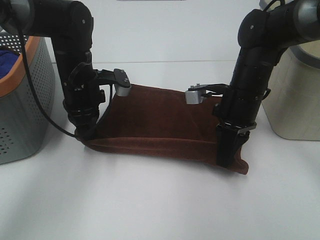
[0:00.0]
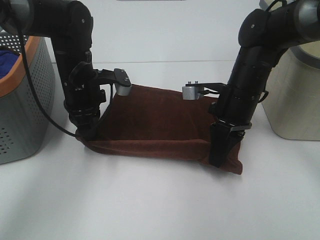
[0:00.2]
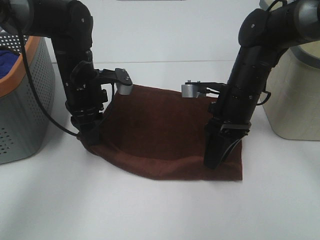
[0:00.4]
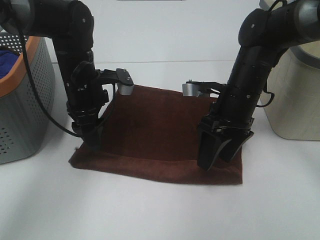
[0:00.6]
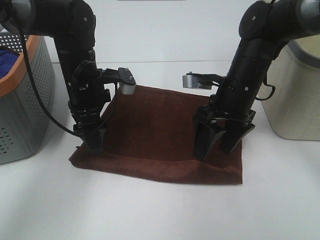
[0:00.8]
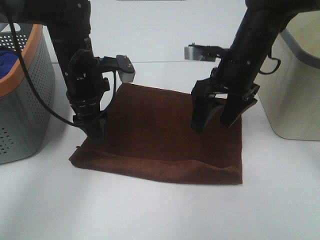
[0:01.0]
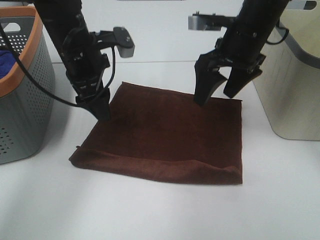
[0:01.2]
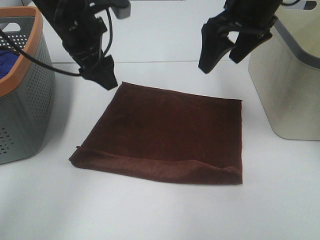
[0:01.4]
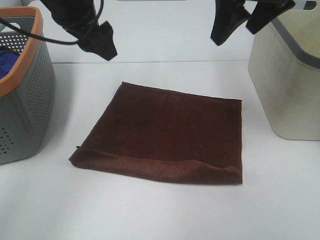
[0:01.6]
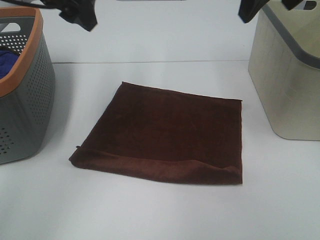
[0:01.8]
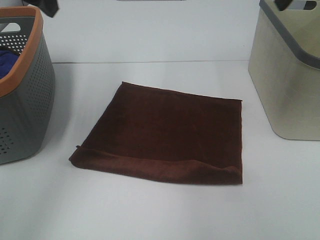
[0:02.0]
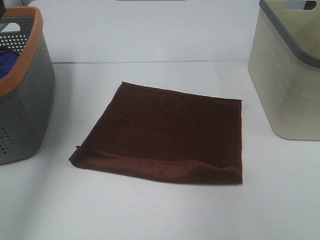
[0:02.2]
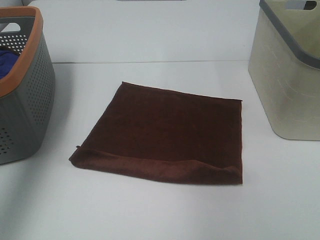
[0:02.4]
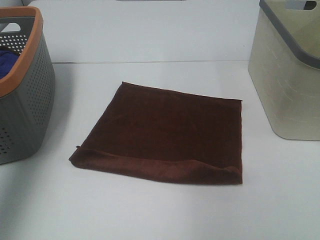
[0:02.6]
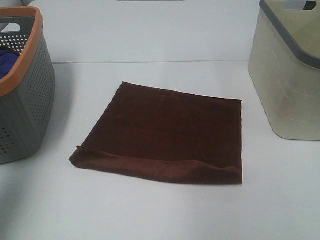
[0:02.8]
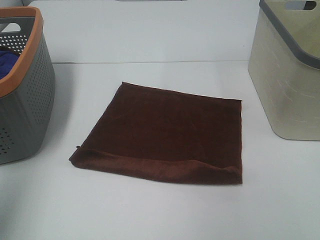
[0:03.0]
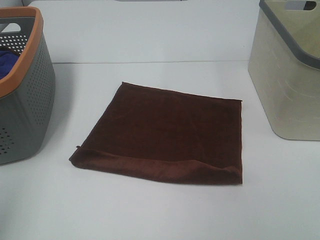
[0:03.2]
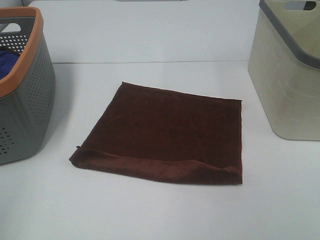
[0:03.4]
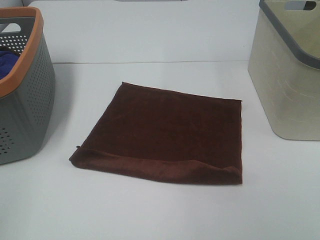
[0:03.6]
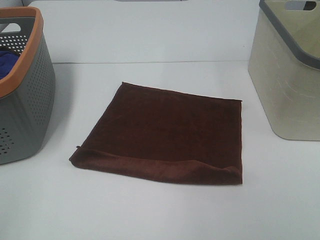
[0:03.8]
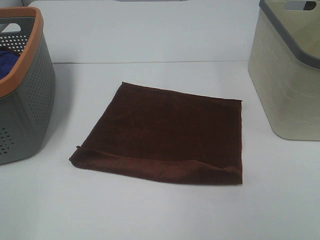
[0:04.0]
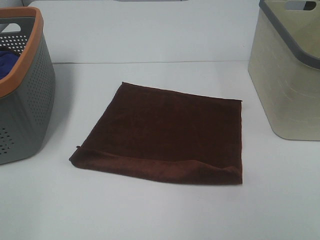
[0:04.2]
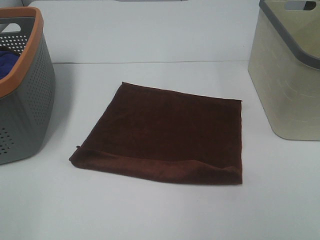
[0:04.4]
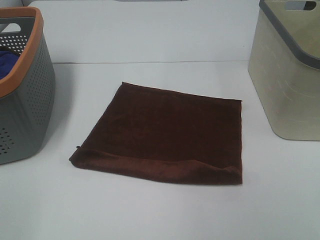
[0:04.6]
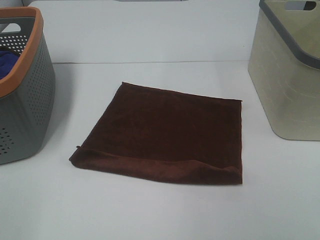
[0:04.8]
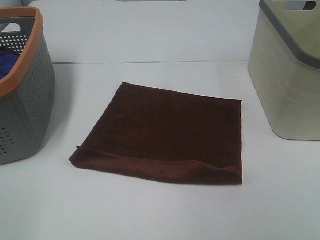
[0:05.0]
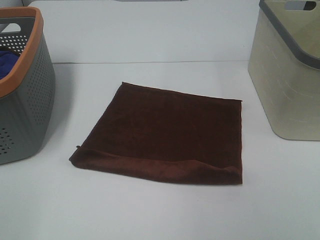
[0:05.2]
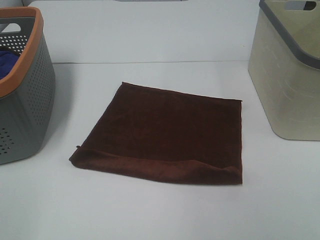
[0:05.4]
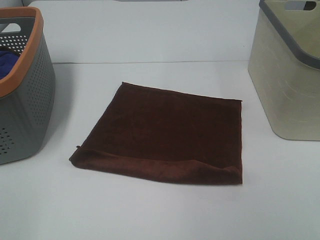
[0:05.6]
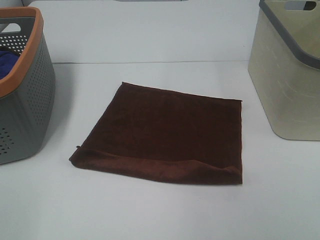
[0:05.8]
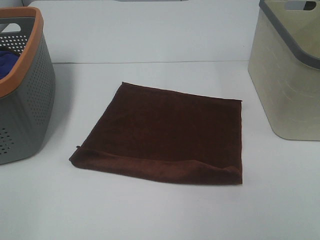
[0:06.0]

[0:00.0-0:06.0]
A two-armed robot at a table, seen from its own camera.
Task of the whole recording: Remove the towel and place it.
0:00.0 to 0:01.6: Both grippers move upward, roughly 20 cm. The left gripper opens its fingers; the right gripper opens its fingers.
0:01.6 to 0:03.0: The right gripper heads backward and to the right, covering approximately 30 cm, while the left gripper heads backward and to the left, covering approximately 30 cm.
0:03.0 to 0:04.4: The left gripper shifts about 15 cm backward and downward.
0:04.4 to 0:06.0: Both grippers stay put.

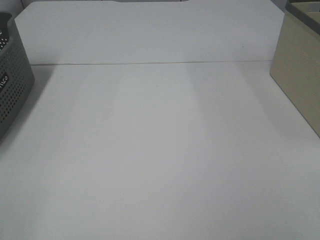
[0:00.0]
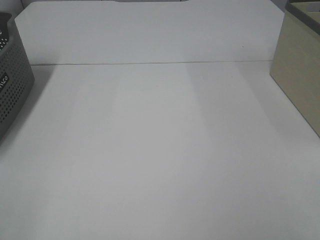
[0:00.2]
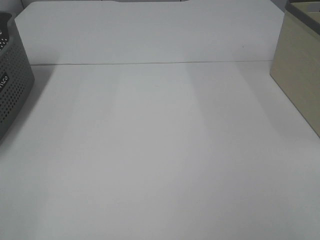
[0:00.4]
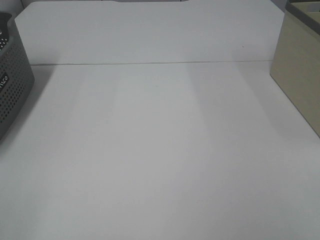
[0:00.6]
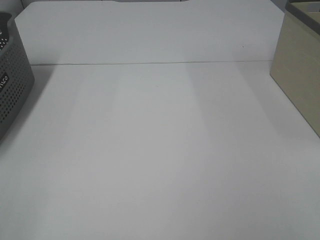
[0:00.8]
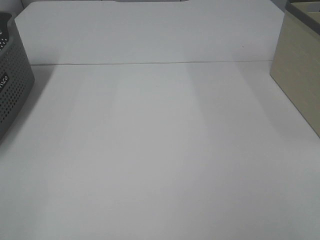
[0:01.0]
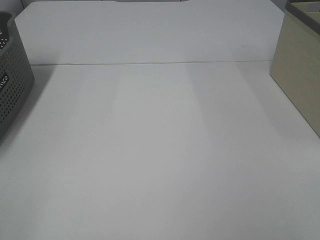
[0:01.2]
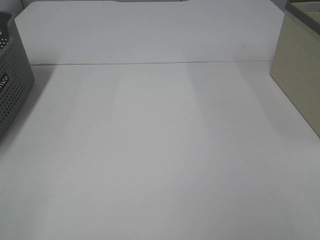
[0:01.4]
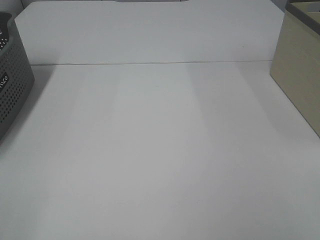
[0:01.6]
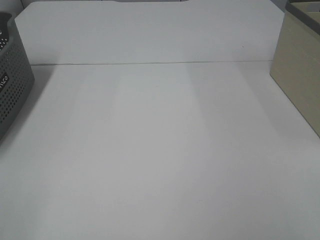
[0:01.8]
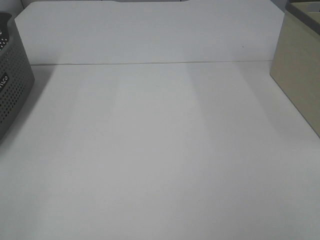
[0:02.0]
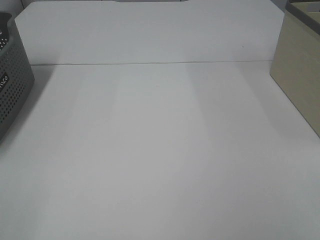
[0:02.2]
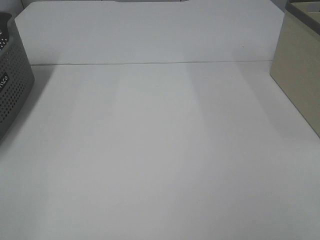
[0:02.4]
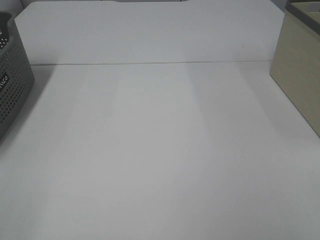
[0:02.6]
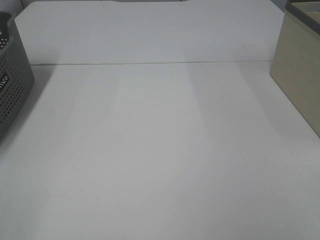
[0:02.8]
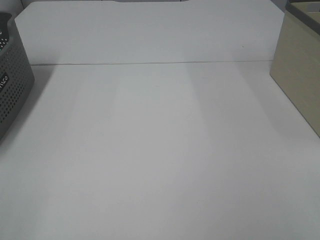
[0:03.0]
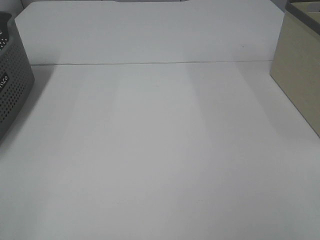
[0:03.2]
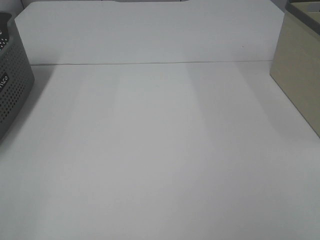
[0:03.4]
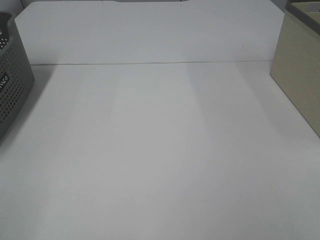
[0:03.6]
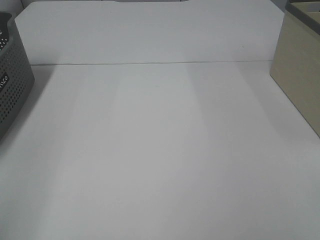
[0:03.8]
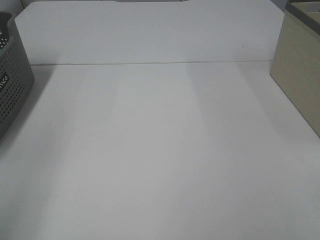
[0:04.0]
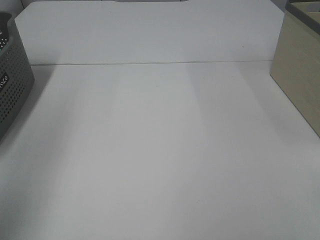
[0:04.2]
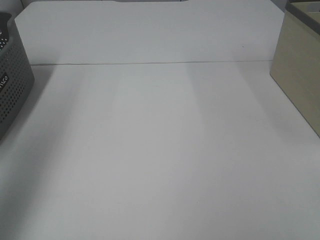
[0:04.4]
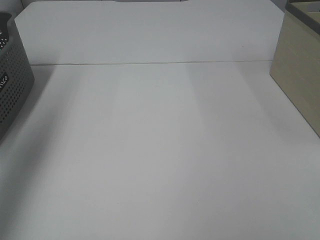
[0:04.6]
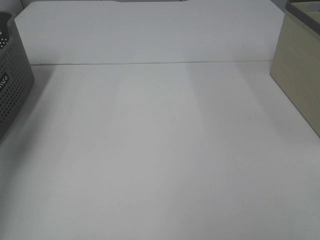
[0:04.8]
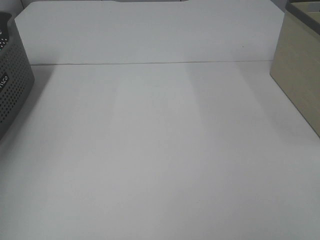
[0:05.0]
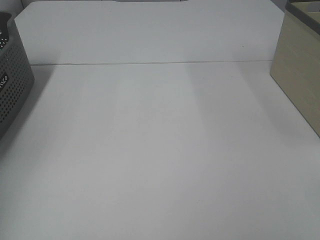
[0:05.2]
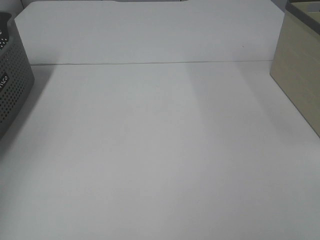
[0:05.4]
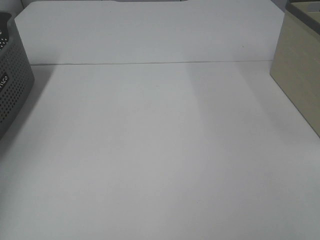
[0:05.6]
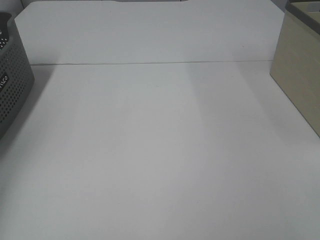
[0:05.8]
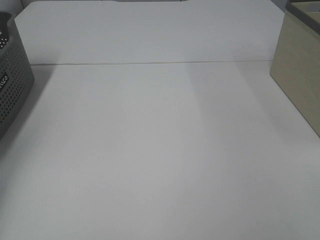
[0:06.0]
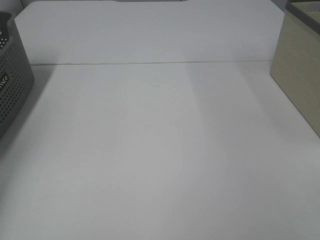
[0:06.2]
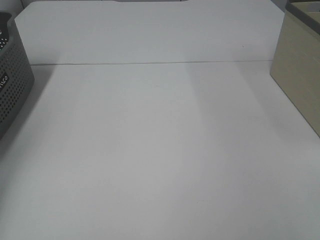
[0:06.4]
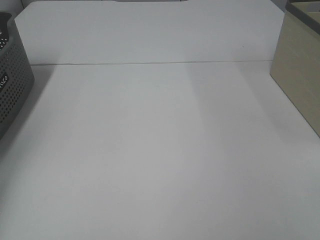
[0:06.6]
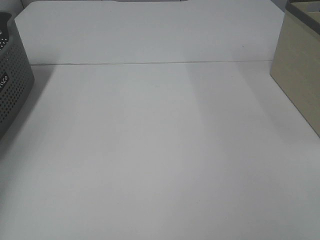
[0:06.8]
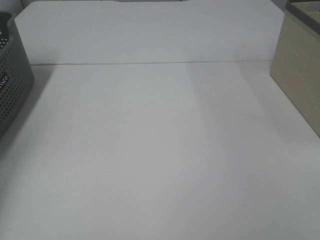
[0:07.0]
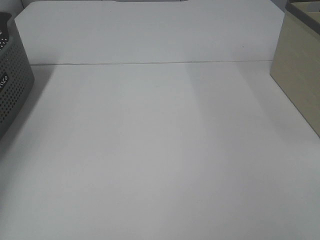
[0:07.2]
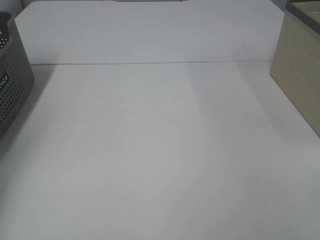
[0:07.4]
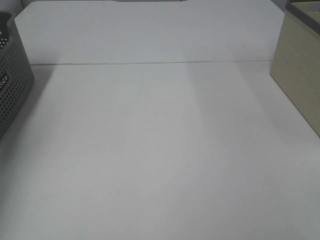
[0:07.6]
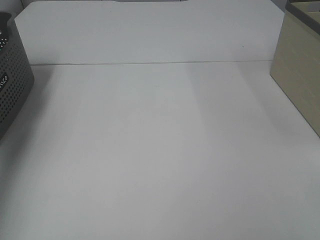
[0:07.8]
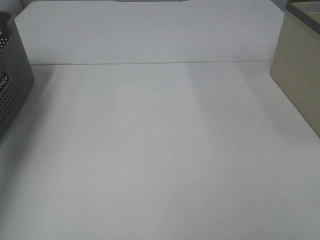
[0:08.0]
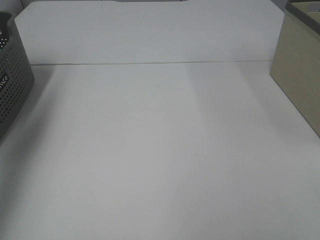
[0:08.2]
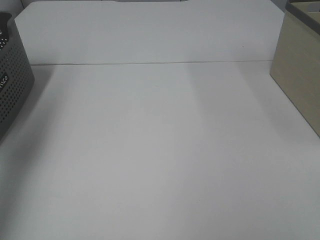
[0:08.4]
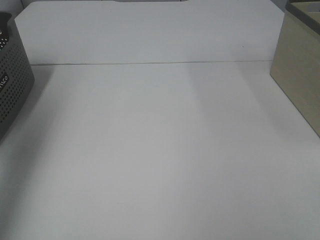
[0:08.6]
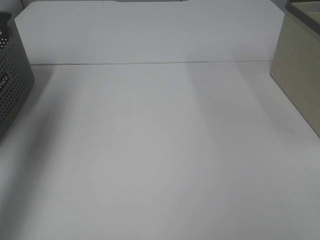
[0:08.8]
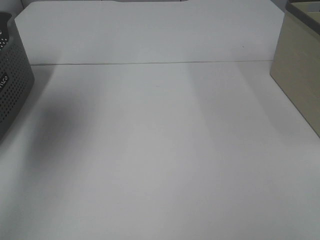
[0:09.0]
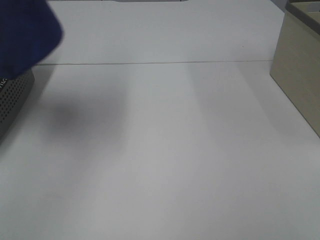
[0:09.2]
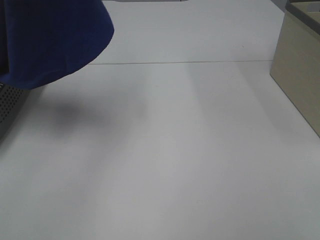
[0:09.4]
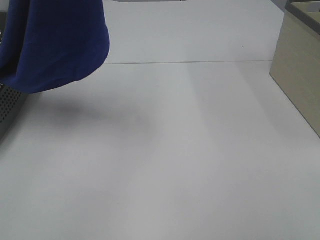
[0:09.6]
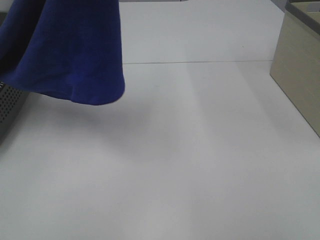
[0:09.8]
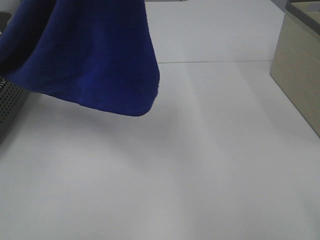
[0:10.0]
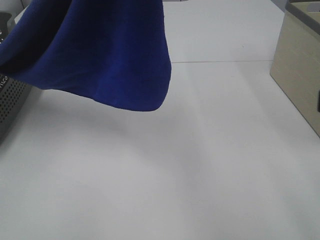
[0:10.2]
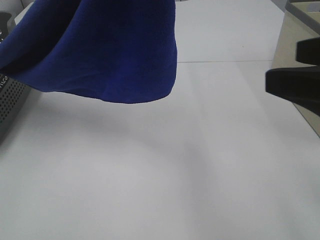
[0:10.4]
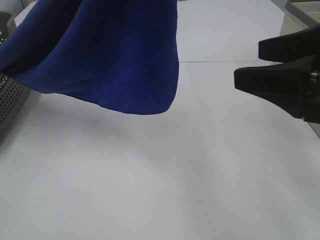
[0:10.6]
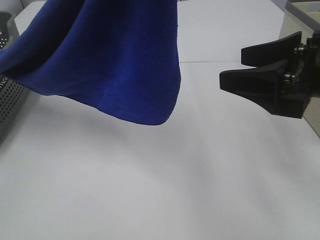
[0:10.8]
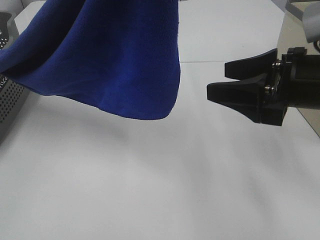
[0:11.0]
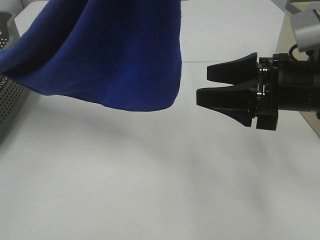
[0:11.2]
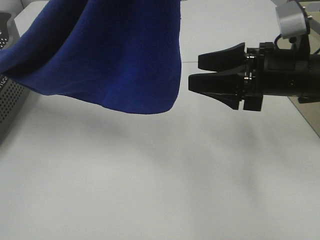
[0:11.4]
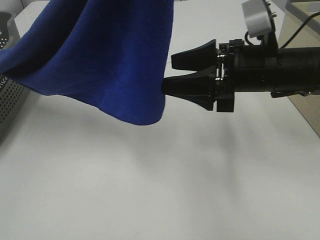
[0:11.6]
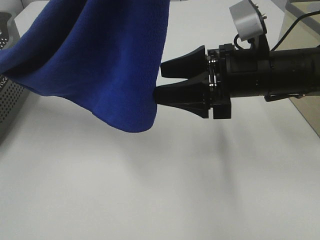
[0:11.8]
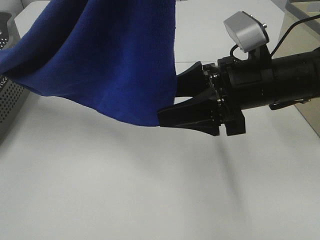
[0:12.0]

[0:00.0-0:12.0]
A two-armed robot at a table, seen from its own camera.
Task of the whole recording: Remove the towel and place it.
0:00.0 to 0:03.0: The two grippers keep their place.
0:03.0 to 0:04.4: The left gripper is displaced forward and upward by about 25 cm.
0:04.4 to 0:06.0: The left gripper goes some 35 cm downward, forward and to the left.
0:07.6 to 0:09.0: The left gripper heads upward, backward and to the right, covering approximately 40 cm.
0:09.0 to 0:10.4: The right gripper travels forward by about 15 cm. The left gripper is displaced to the right by some 20 cm.
0:10.4 to 0:12.0: The right gripper moves forward, downward and to the left, about 20 cm.

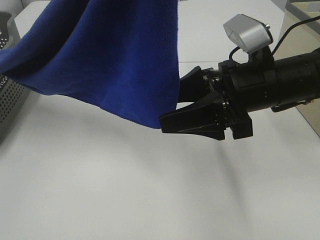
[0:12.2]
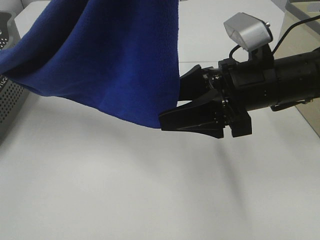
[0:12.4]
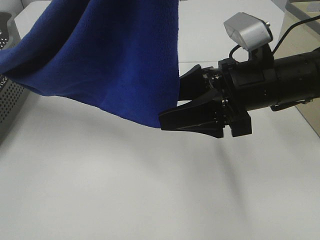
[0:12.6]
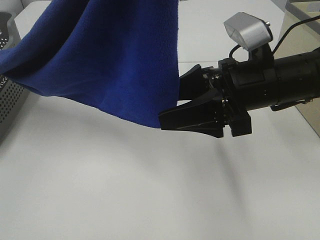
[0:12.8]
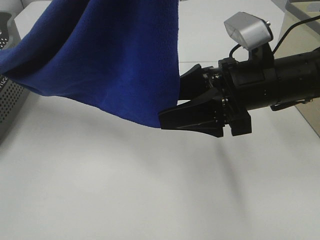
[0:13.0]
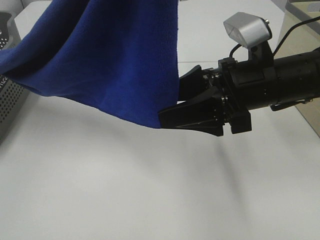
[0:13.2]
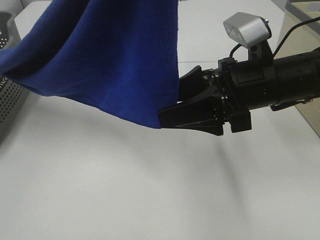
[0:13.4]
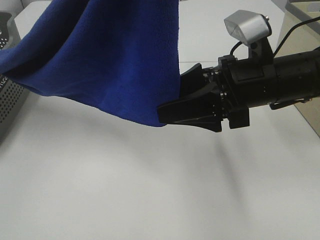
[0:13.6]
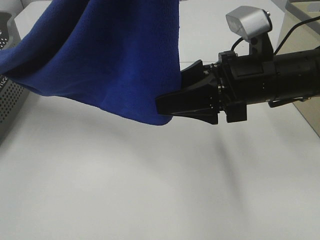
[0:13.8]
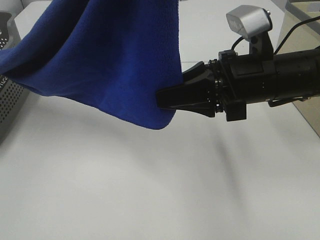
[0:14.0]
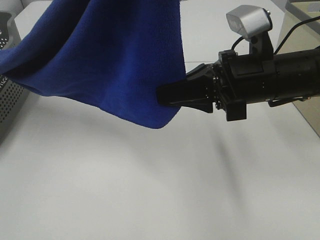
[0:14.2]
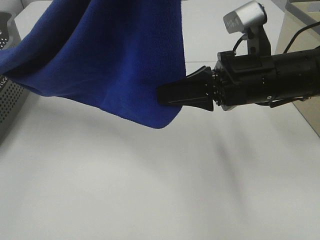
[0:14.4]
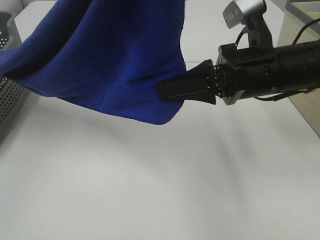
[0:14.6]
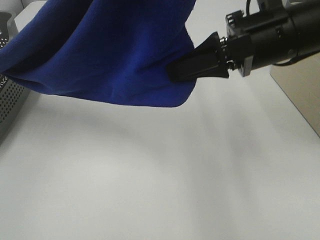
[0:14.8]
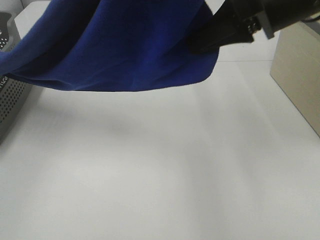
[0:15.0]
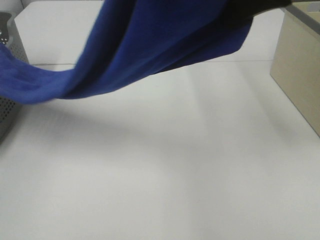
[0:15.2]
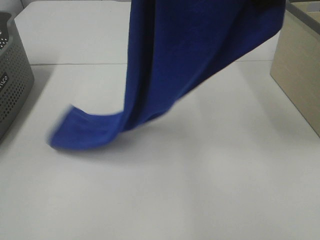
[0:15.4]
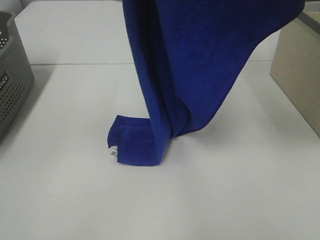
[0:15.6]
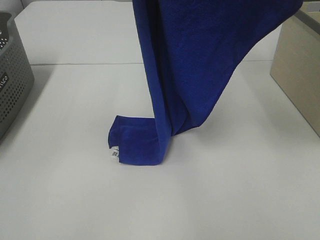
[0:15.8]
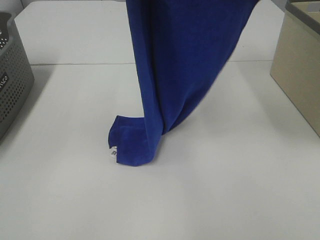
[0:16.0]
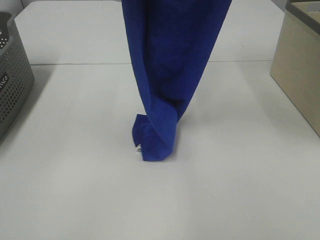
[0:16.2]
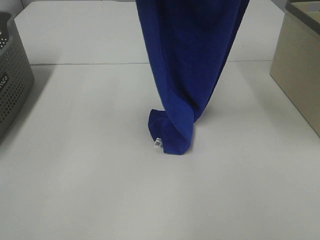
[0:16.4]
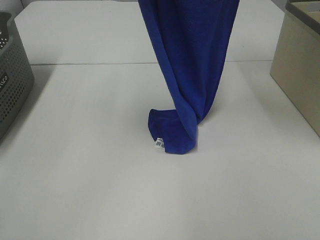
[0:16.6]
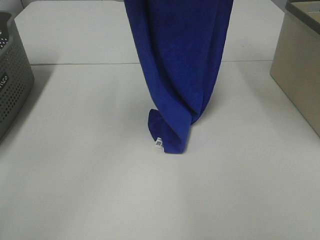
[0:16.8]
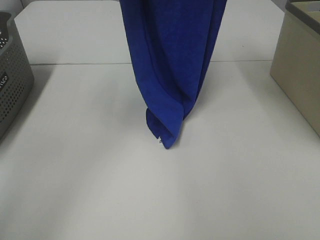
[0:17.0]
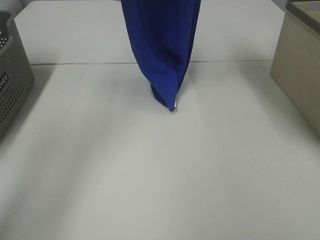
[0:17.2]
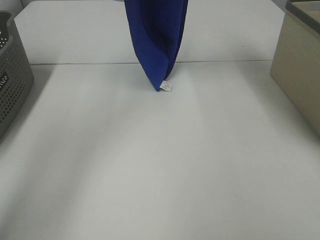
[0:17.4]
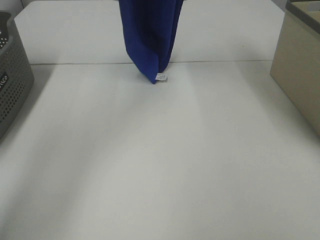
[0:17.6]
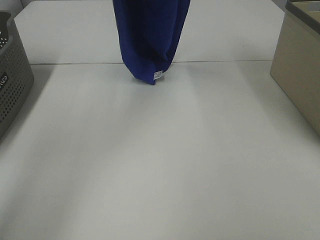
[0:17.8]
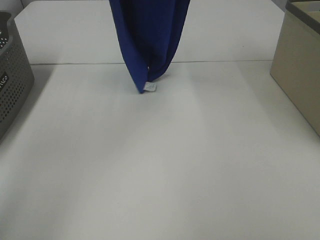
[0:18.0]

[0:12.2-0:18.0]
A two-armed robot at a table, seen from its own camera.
Task of the whole recording: Remove the towel and place it.
Step, 0:12.2 to 0:14.6: Right hand: grab a corner of the blue towel and straighten it.
0:12.2 to 0:13.6: The grippers make only small movements.
0:13.6 to 0:15.0: The right gripper shifts some 10 cm upward, and closes up.
0:15.0 to 0:16.6: The left gripper shifts some 15 cm forward and to the left, while the right gripper is displaced upward and forward by roughly 15 cm.
0:16.6 to 0:18.0: The right gripper moves upward, roughly 5 cm, and reaches about 10 cm forward, then returns; the left gripper is displaced upward and forward by roughly 10 cm.
